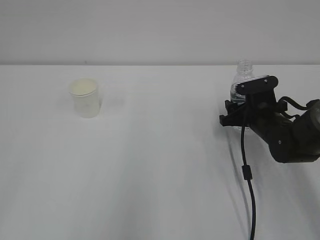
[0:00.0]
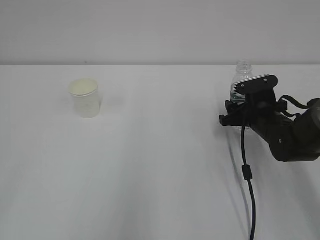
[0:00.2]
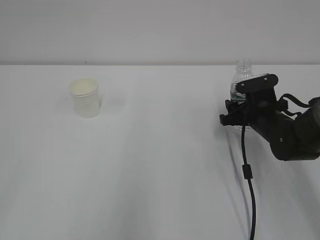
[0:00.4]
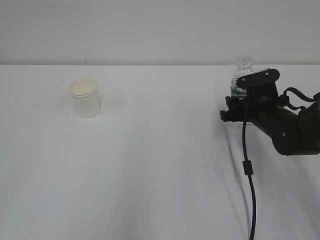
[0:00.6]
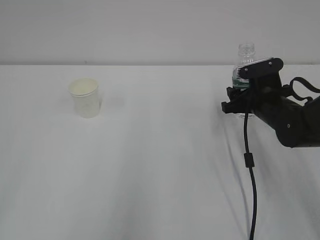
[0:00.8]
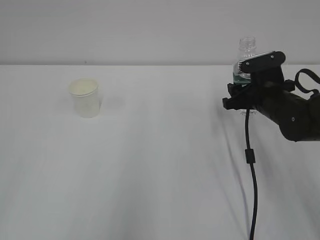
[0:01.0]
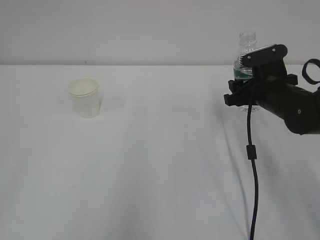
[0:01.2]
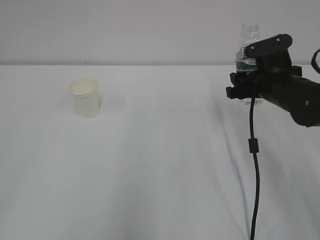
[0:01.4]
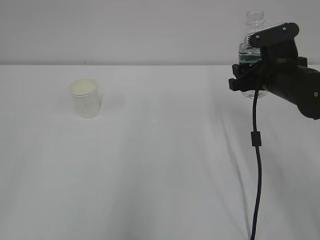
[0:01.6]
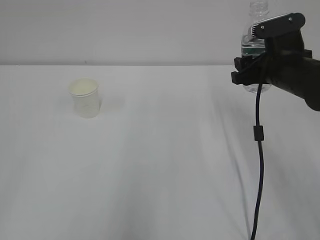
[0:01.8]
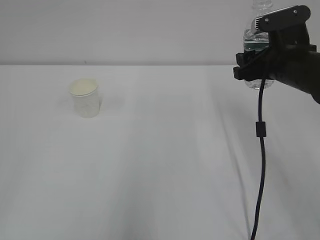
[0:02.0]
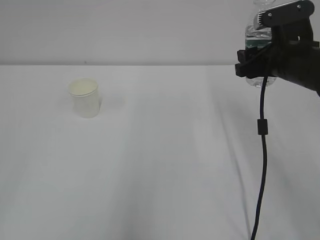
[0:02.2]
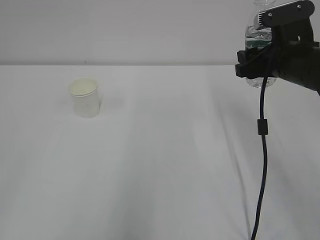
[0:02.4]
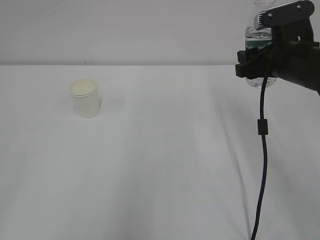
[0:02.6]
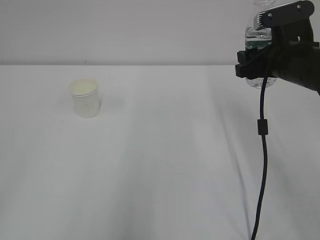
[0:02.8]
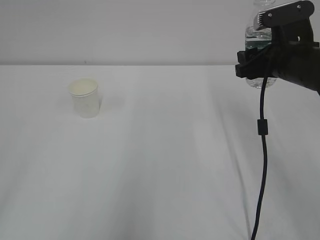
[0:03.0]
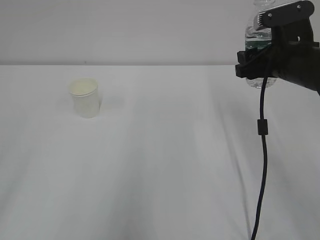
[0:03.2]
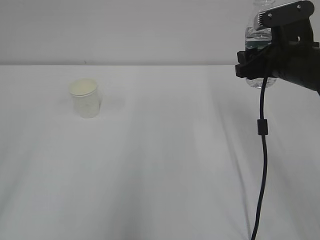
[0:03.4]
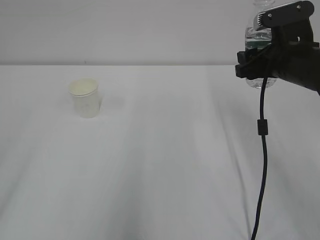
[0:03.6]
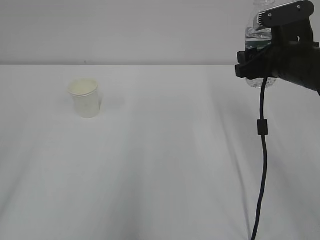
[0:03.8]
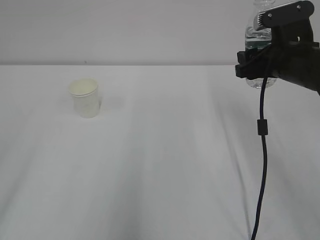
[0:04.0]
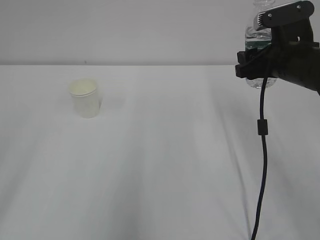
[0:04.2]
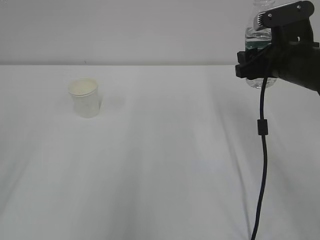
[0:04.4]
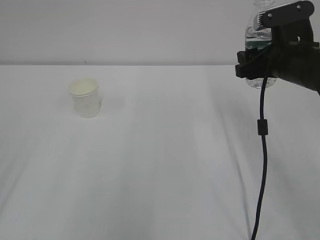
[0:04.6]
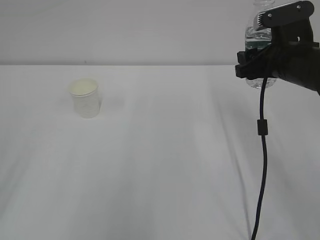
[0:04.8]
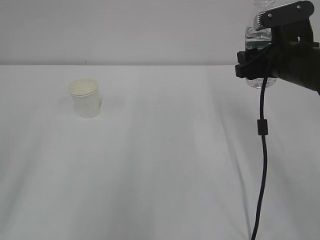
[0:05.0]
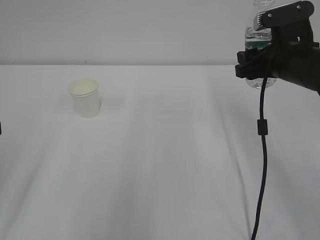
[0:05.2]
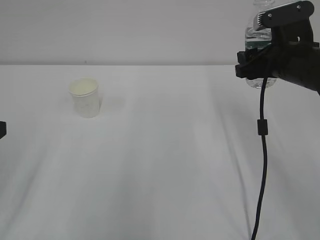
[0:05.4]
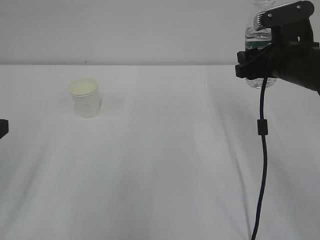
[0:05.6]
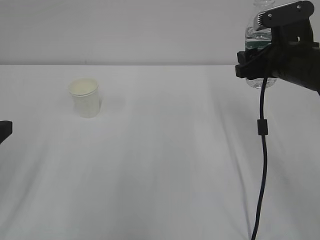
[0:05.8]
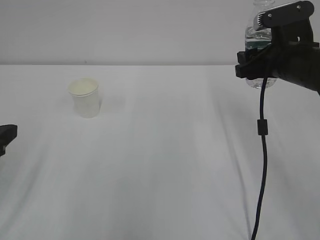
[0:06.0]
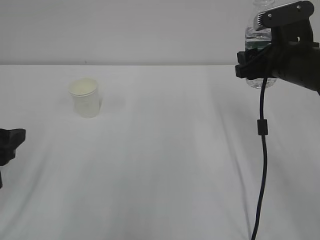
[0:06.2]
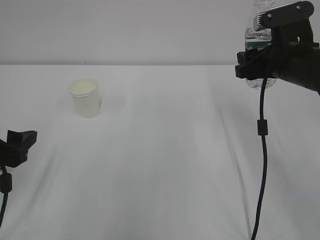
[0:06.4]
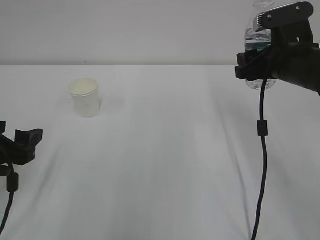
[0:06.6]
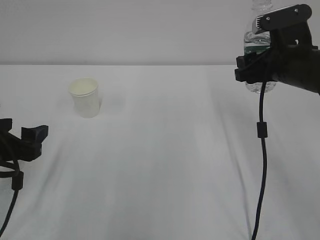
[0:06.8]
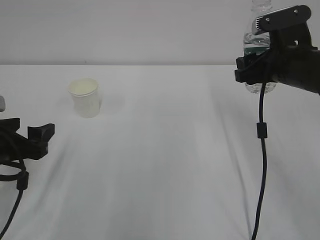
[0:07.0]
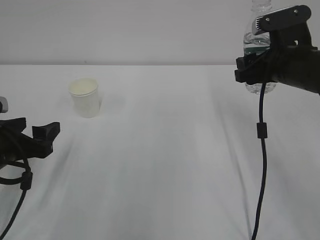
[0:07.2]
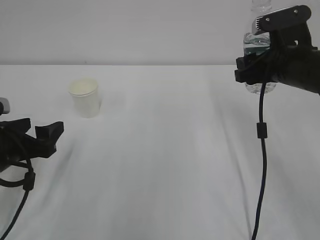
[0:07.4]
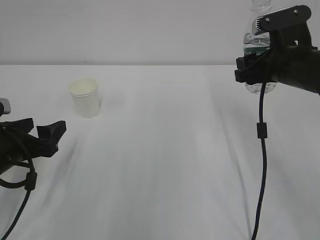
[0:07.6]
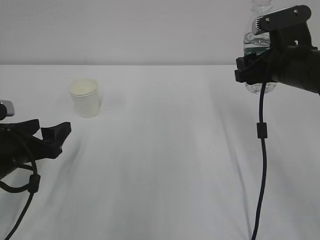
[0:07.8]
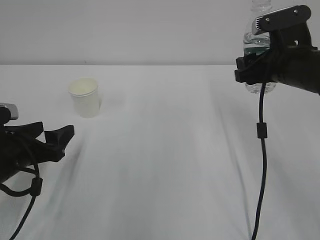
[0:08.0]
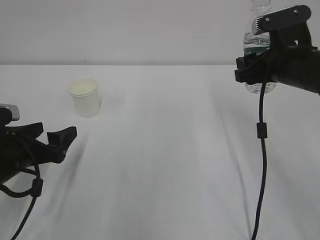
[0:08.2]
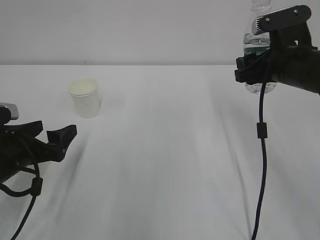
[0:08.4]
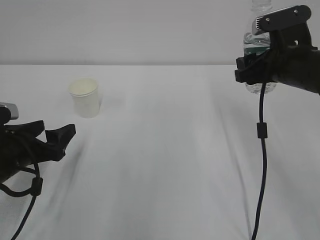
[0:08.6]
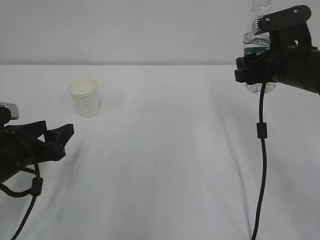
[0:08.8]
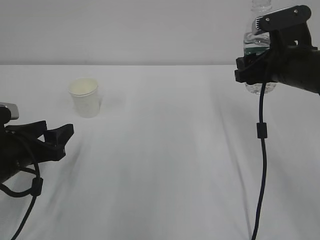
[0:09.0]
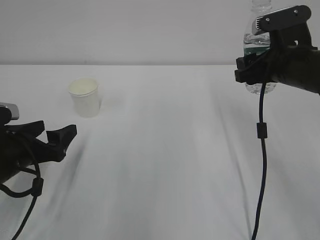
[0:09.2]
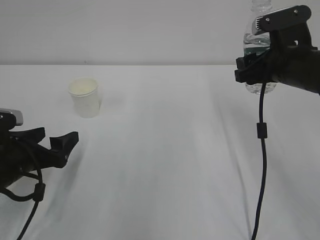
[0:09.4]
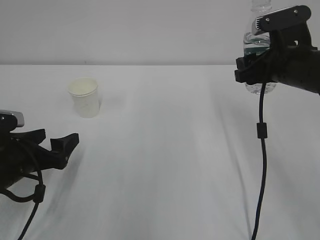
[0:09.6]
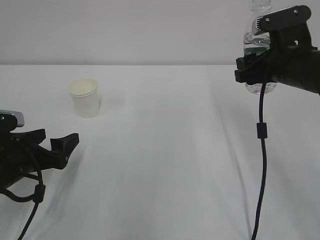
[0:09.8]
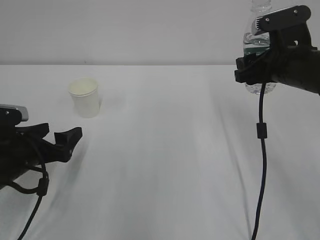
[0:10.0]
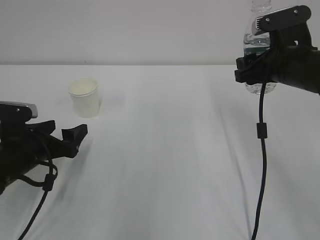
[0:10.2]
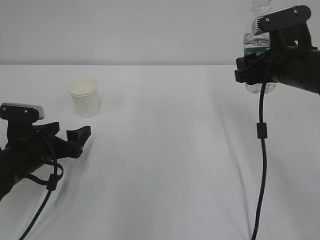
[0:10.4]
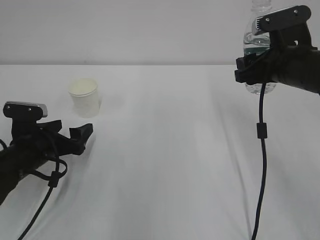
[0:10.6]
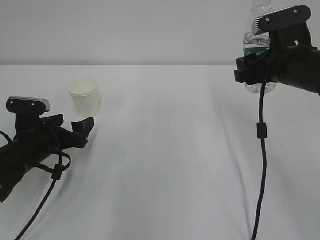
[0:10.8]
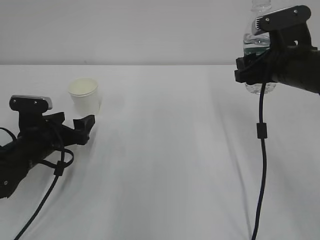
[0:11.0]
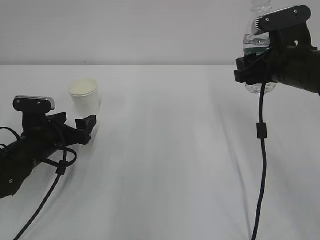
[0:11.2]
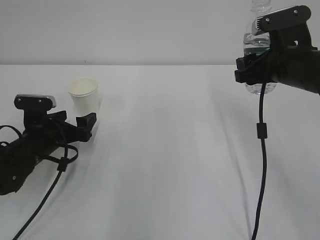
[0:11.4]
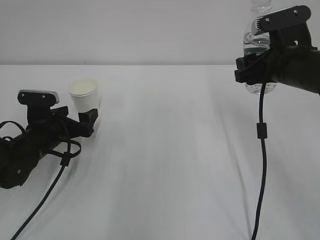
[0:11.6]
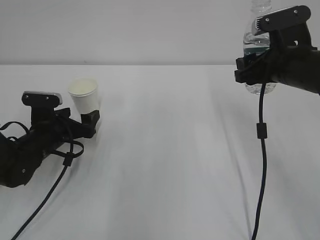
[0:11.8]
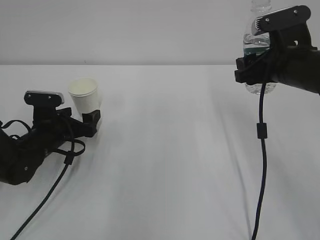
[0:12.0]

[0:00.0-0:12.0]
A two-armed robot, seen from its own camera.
0:00.0 to 0:01.6: The right gripper goes about 10 cm upward.
0:01.6 to 0:03.0: The grippers move only a little.
0:06.0 to 0:07.6: The left gripper travels downward by roughly 5 cm.
0:07.6 to 0:09.0: Neither gripper changes place.
0:09.0 to 0:10.4: The left gripper changes place by some 5 cm, and opens its fingers.
0:10.4 to 0:12.0: The left gripper moves forward, some 5 cm.

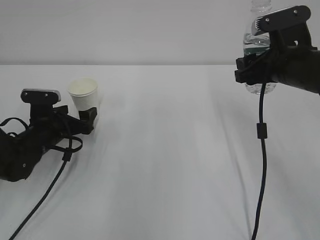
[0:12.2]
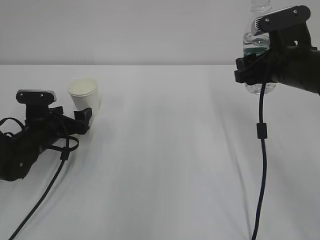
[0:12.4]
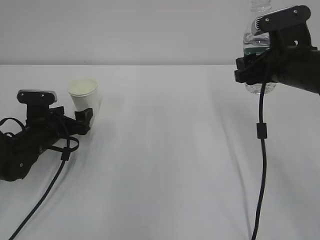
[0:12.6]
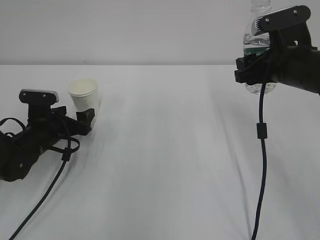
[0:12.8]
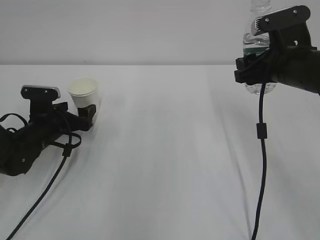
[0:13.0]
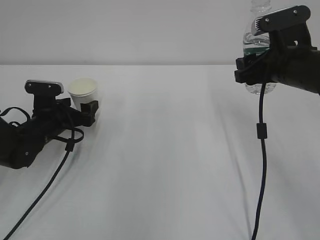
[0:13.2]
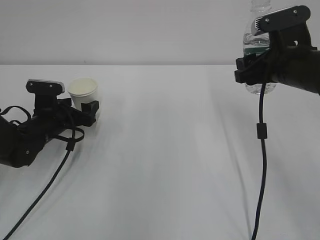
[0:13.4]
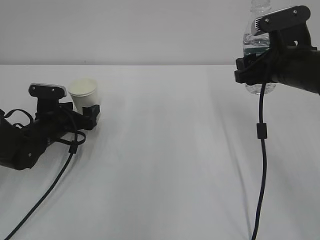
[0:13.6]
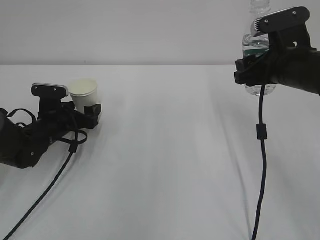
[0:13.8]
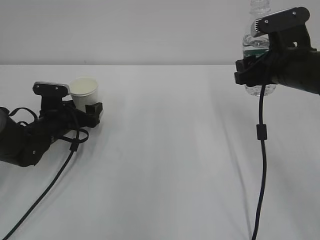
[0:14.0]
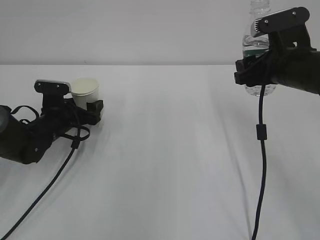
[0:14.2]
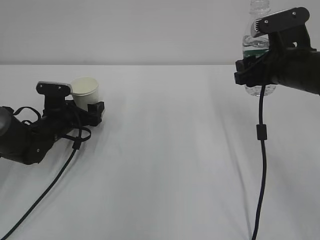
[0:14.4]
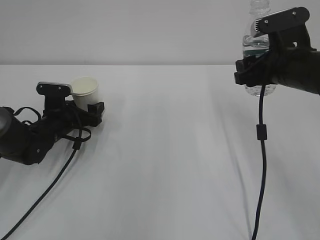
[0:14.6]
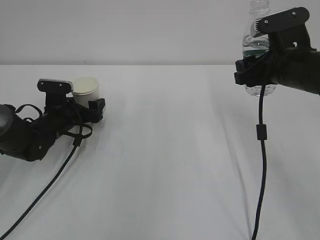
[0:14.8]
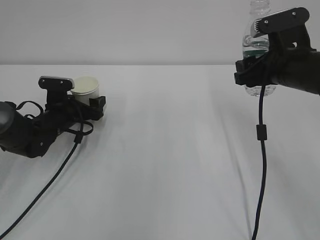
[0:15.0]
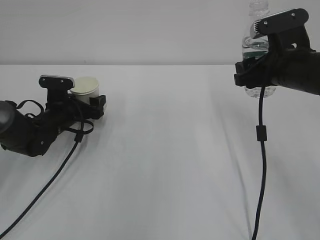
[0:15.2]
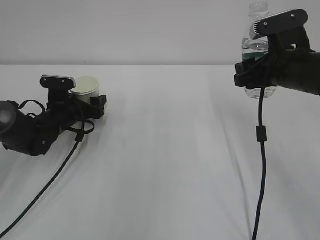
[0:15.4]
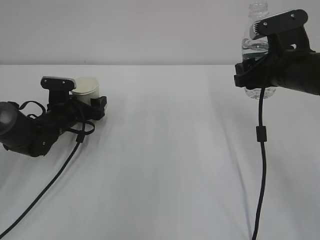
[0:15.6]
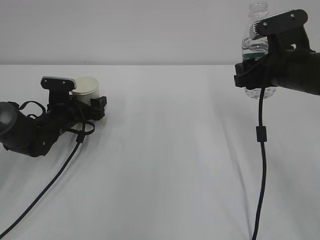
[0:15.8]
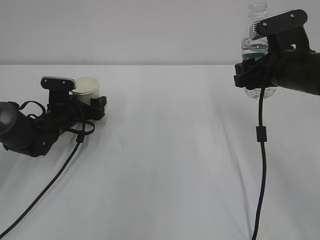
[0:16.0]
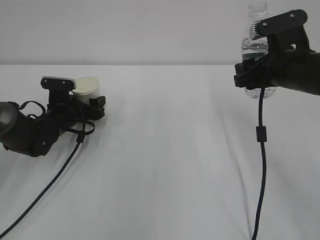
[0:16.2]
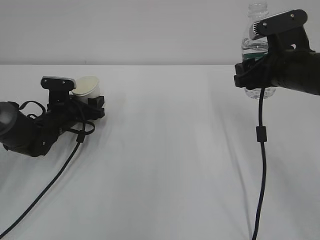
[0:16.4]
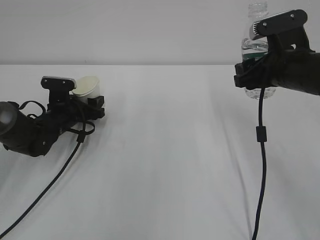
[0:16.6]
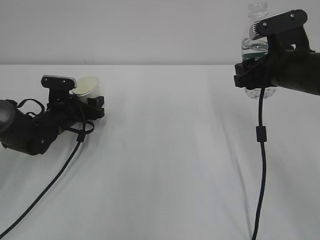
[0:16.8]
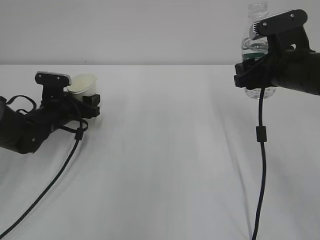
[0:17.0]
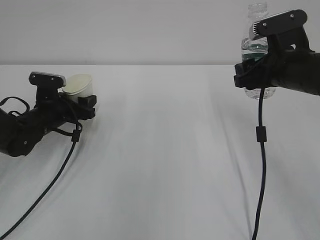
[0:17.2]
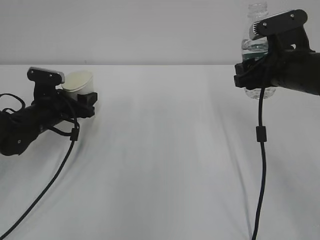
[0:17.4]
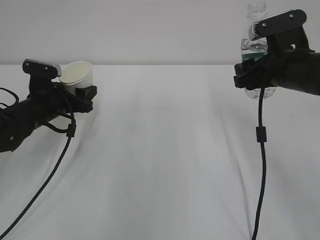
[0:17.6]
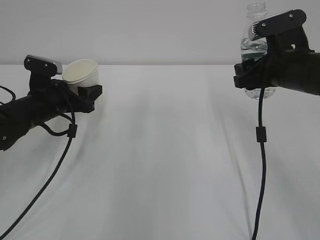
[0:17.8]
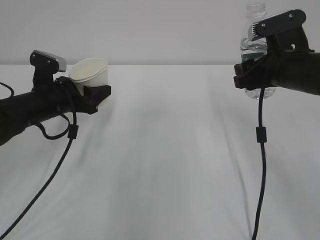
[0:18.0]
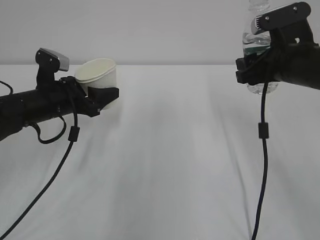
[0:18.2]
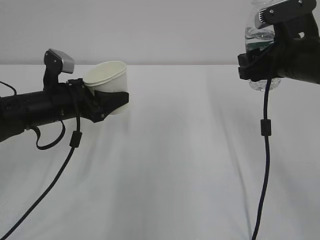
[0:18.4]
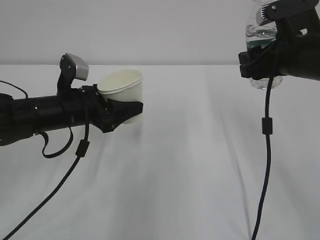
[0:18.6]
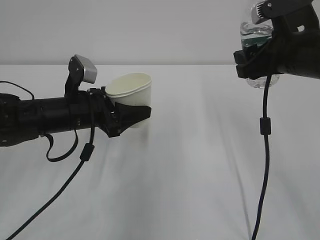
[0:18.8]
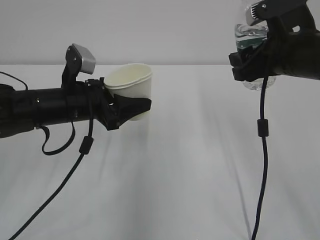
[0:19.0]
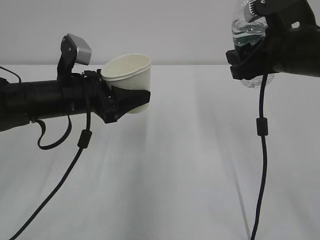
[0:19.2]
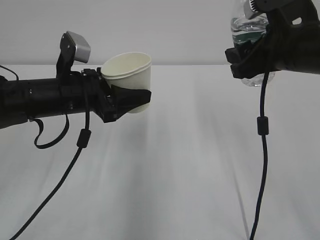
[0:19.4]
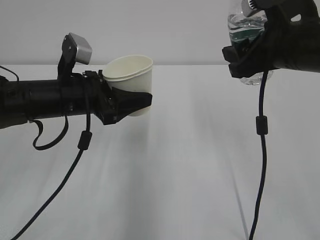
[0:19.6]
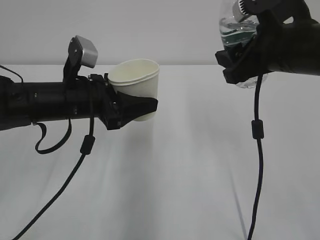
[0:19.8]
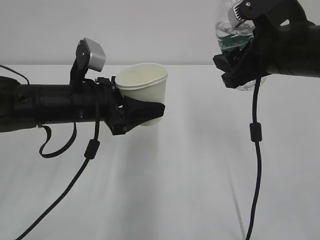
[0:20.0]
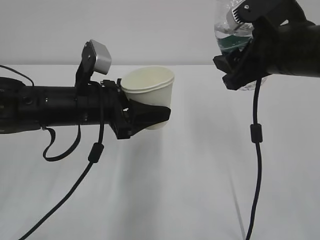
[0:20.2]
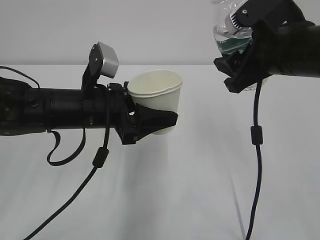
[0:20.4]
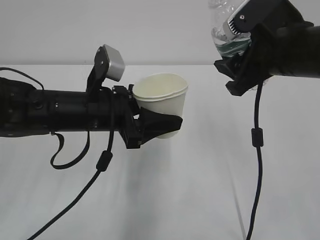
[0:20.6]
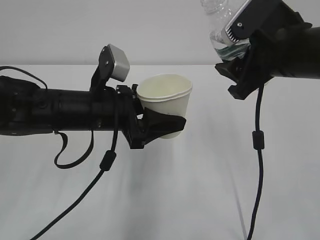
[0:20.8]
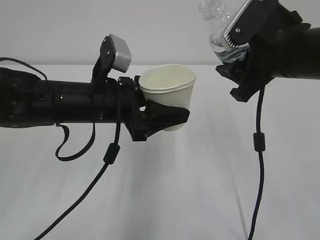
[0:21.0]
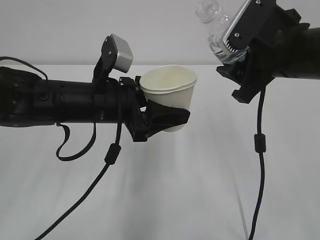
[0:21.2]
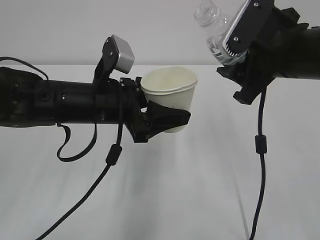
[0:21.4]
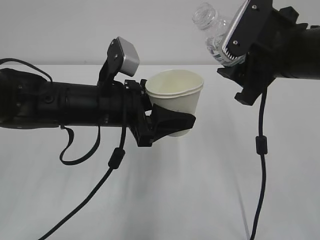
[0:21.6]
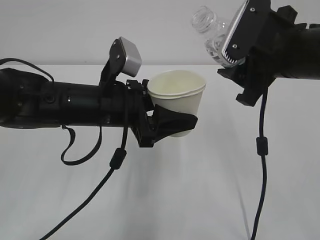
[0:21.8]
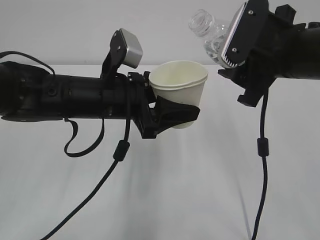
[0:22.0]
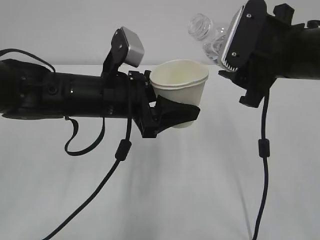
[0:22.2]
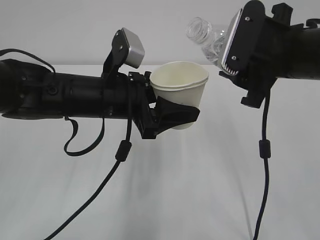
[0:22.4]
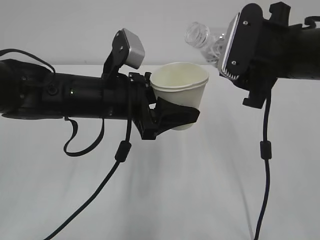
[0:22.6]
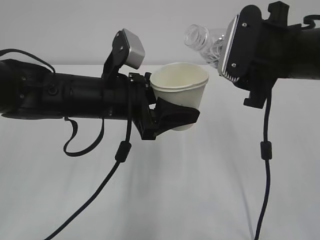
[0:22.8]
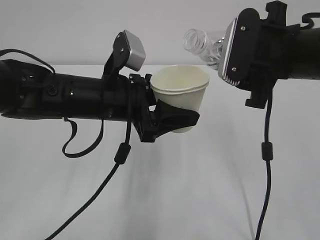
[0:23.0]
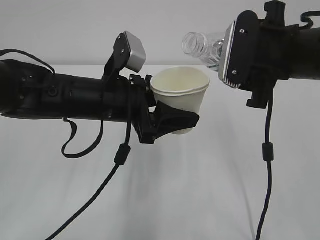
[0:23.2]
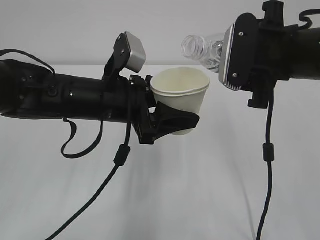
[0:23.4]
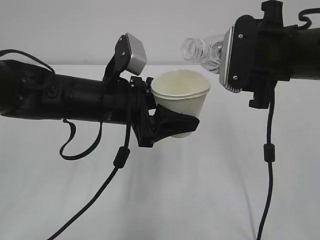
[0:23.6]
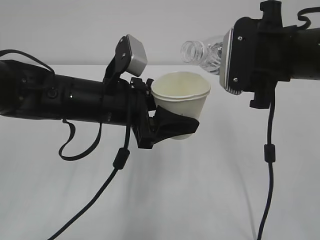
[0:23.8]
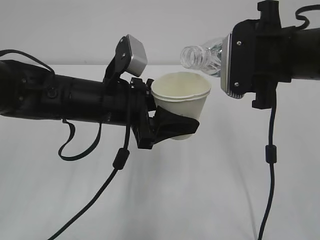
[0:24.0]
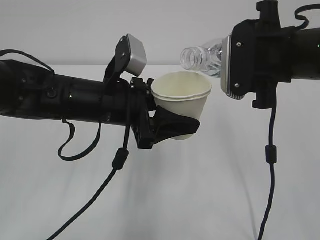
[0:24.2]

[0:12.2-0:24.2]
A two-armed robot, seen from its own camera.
0:12.2 to 0:15.2: The grippers move only a little.
0:15.2 to 0:16.6: The left gripper closes up.
0:16.6 to 0:18.2: The left gripper is displaced upward and backward by some 10 cm.
0:18.2 to 0:19.8: The right gripper moves about 10 cm. The left gripper is displaced to the right by approximately 5 cm.
0:19.8 to 0:21.2: The left gripper moves approximately 5 cm.
0:21.2 to 0:22.6: The grippers stay close to where they were, moving slightly.
0:22.6 to 0:24.2: The grippers move only a little.
